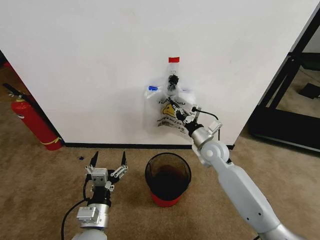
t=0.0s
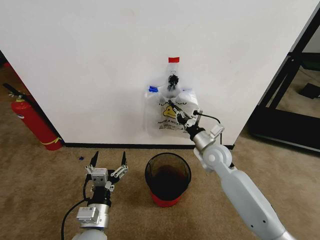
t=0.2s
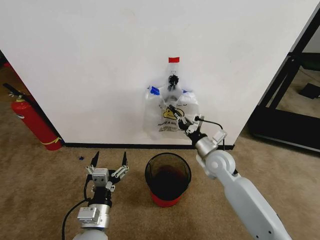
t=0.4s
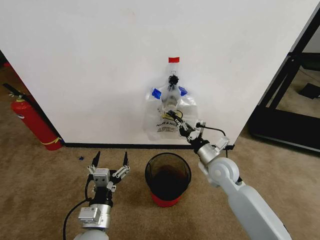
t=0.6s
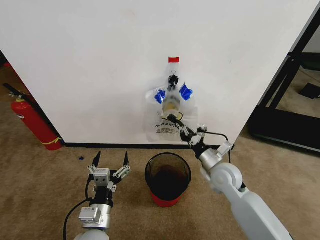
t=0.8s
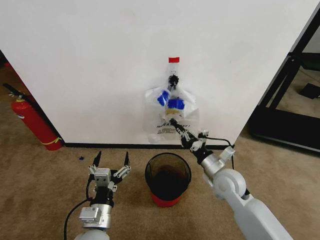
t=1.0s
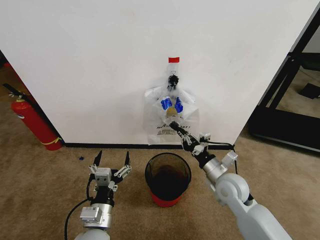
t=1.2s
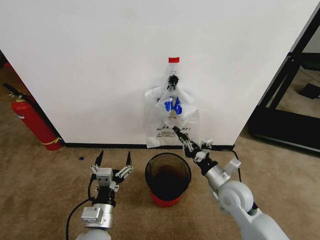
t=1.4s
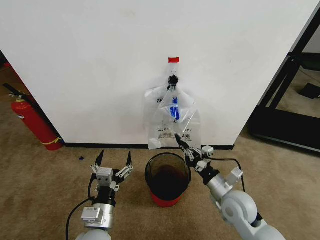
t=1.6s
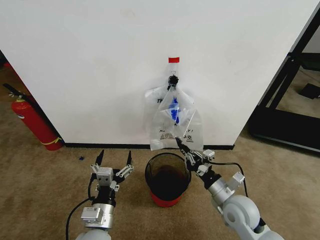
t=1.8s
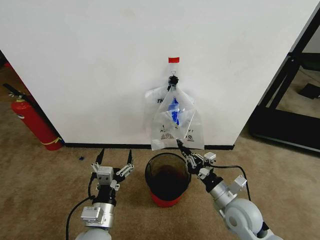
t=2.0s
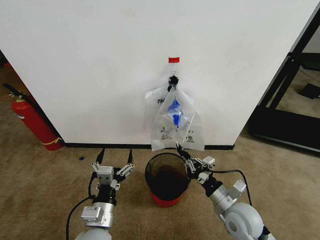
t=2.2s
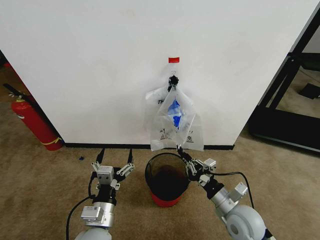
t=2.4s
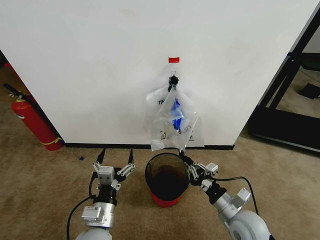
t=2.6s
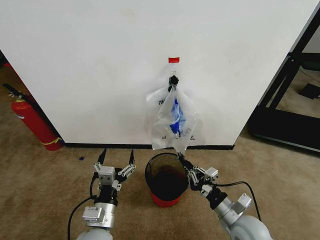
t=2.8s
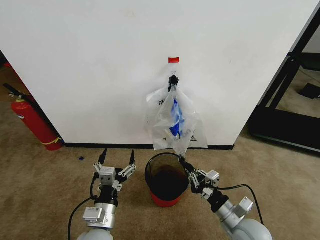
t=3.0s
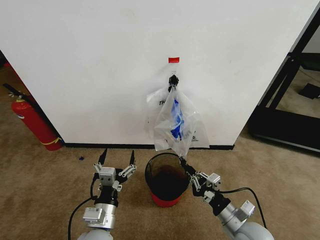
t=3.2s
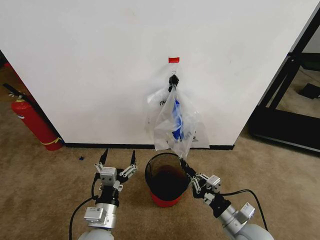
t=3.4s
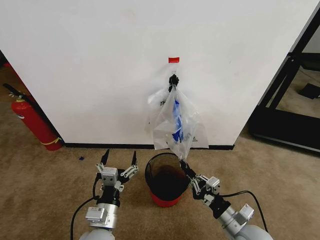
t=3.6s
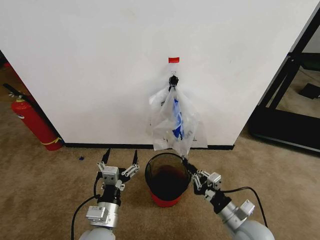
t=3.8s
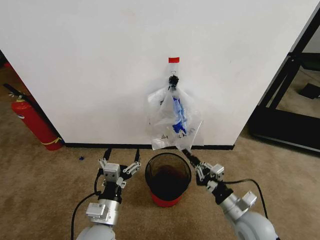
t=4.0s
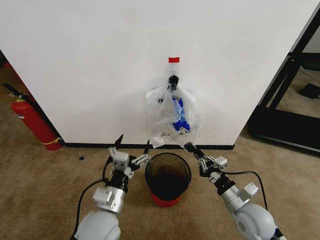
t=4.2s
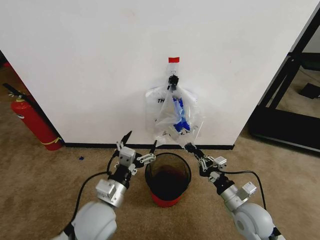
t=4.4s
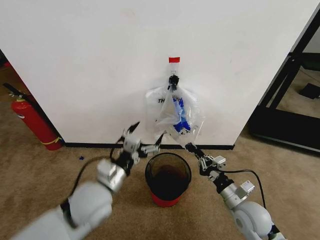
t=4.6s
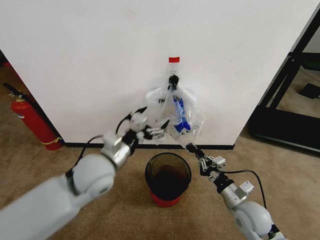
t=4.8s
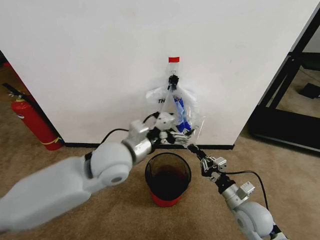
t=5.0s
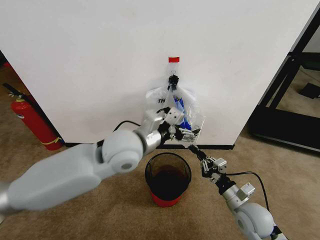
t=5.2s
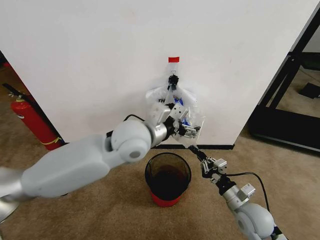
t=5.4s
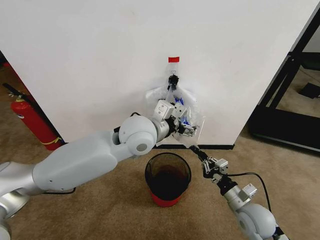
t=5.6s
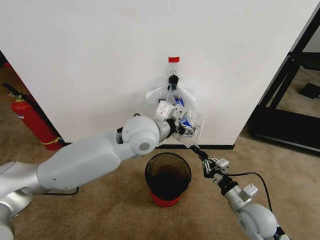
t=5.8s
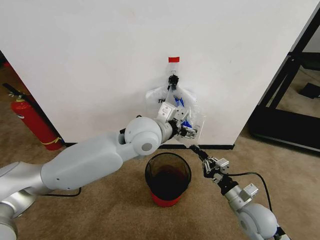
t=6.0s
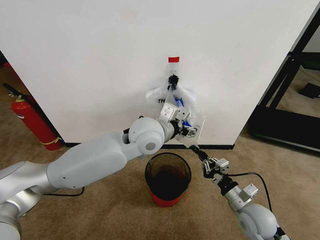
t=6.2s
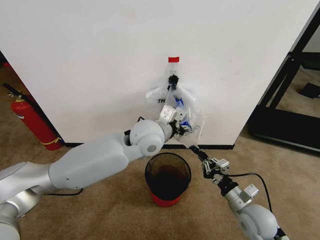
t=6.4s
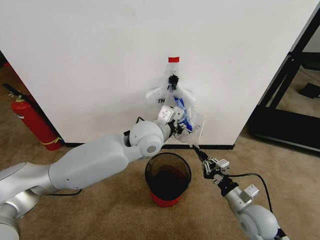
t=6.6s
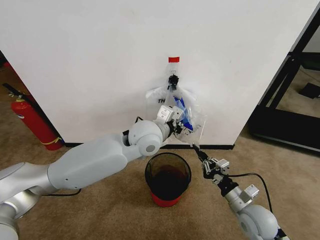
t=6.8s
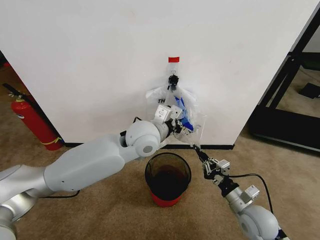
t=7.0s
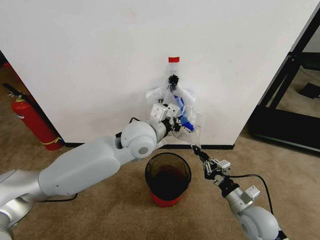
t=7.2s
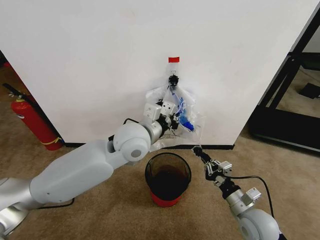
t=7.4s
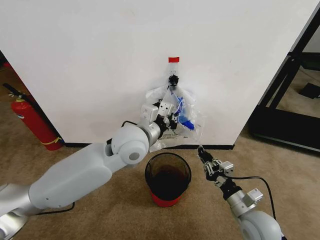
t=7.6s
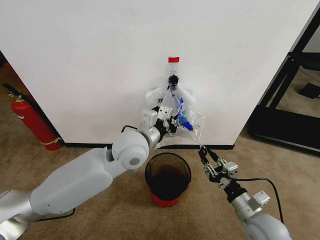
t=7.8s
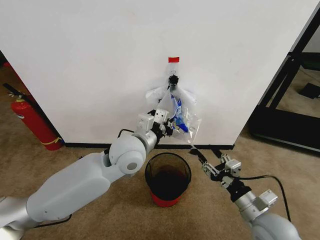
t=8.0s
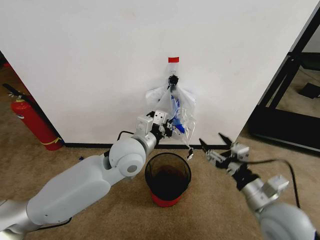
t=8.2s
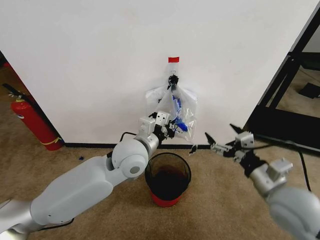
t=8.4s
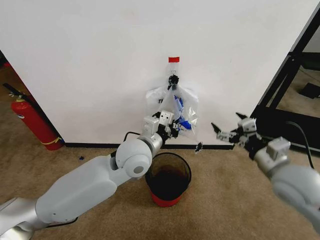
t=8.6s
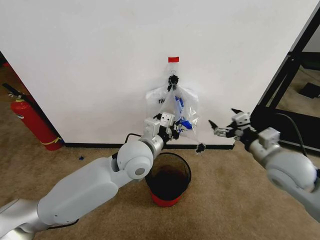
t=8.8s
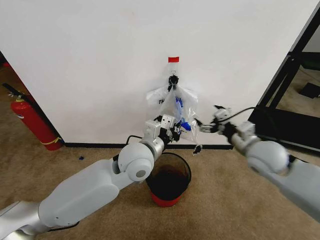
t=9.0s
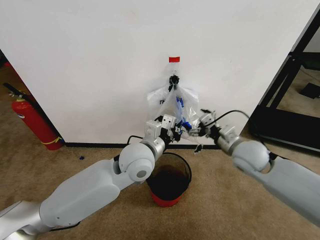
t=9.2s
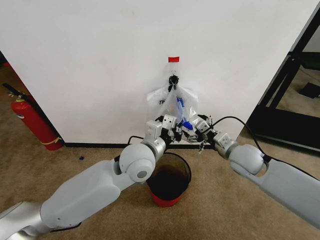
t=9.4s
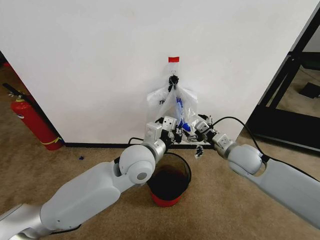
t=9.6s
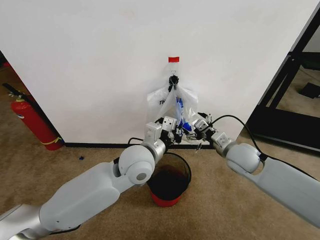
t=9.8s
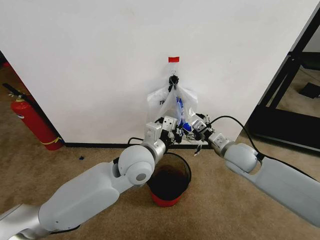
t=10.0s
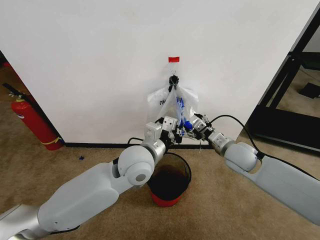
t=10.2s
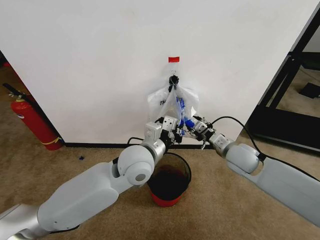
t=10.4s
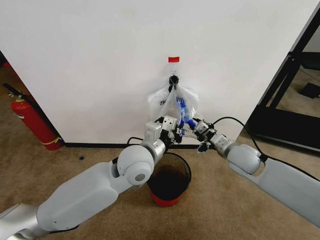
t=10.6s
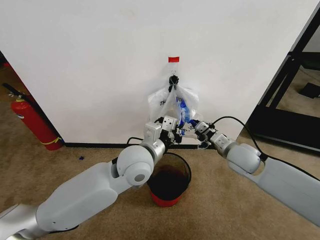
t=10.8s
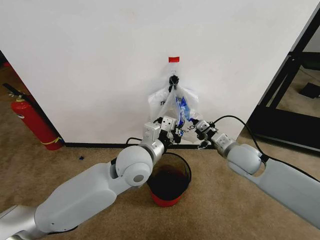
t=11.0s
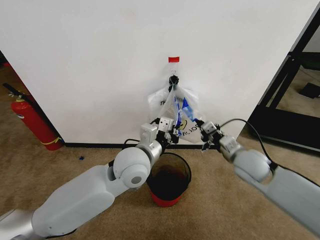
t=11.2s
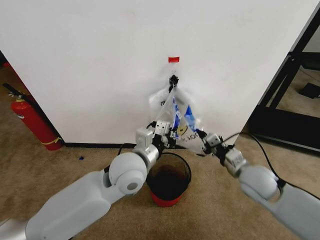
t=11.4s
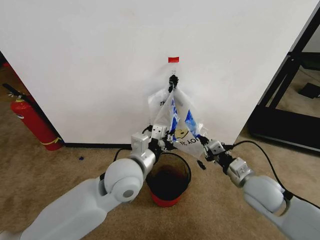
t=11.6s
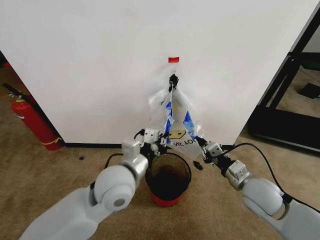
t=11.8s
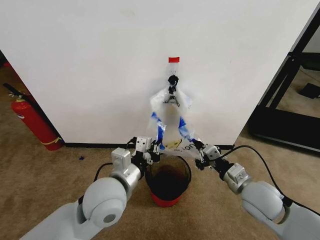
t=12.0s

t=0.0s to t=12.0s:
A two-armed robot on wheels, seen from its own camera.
Task of the whole recording: Pick up the garbage bag from the wall and place it over the trash bin.
t=0.0s to t=1.6s: The right gripper shifts about 15 cm backward.
t=1.6s to t=3.0s: The right gripper travels backward by some 10 cm.
t=3.0s to t=4.4s: The left gripper shifts approximately 5 cm forward.
t=4.4s to t=6.0s: The left gripper travels upward, forward and to the right by approximately 25 cm.
t=6.0s to t=7.6s: The left gripper closes.
t=7.6s to t=9.0s: The right gripper goes some 20 cm upward and forward, and opens up, while the left gripper changes place by approximately 5 cm.
t=9.0s to t=10.4s: The right gripper moves downward, about 5 cm, and closes its fingers.
t=10.4s to t=12.0s: The right gripper moves backward, roughly 10 cm, and closes up. Meanwhile the left gripper heads backward and to the left, covering some 10 cm.

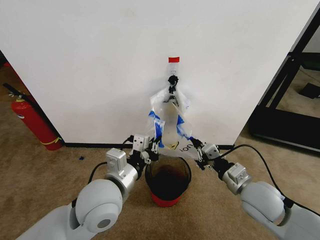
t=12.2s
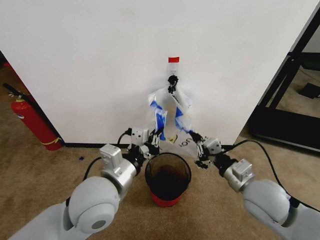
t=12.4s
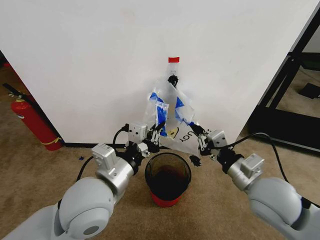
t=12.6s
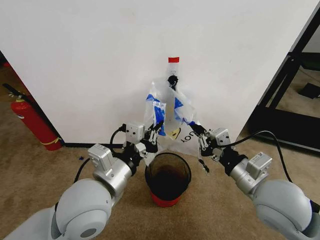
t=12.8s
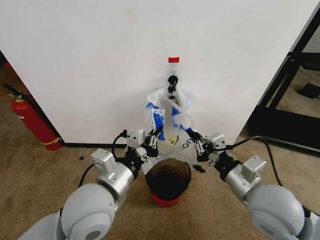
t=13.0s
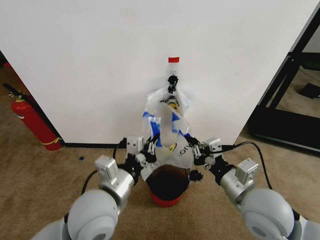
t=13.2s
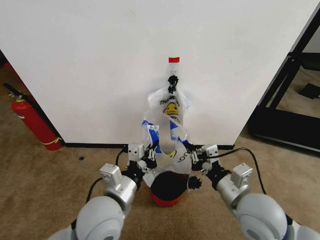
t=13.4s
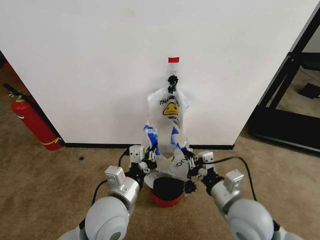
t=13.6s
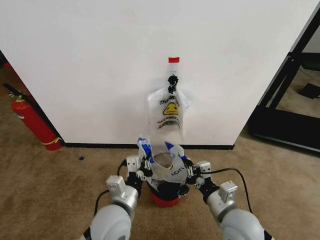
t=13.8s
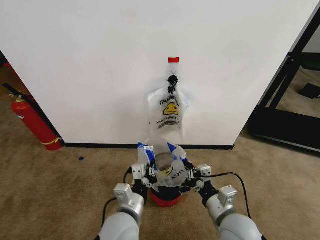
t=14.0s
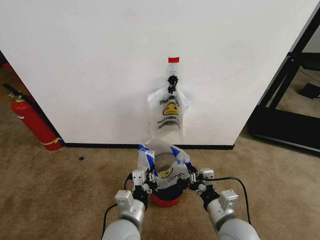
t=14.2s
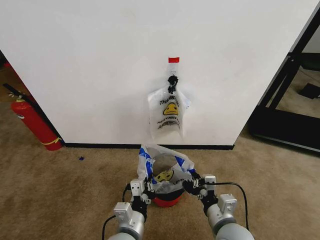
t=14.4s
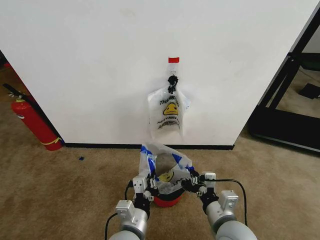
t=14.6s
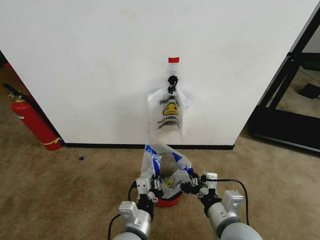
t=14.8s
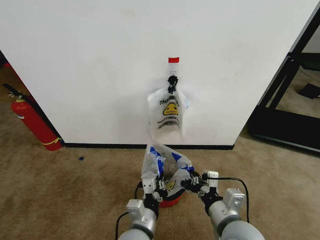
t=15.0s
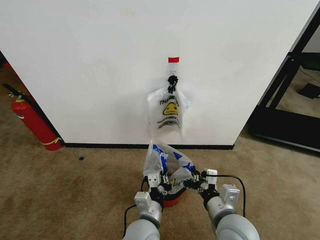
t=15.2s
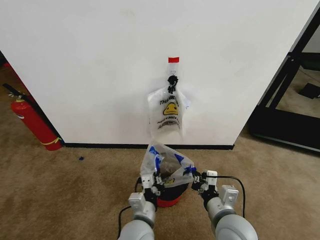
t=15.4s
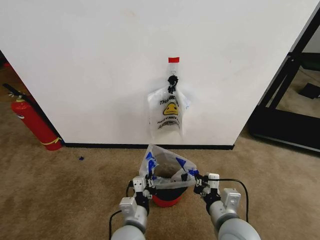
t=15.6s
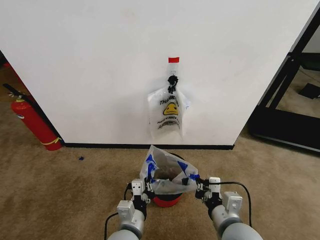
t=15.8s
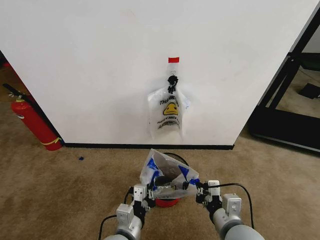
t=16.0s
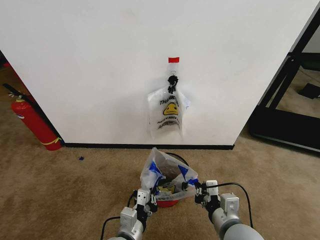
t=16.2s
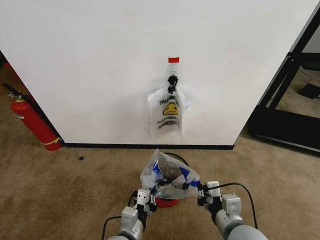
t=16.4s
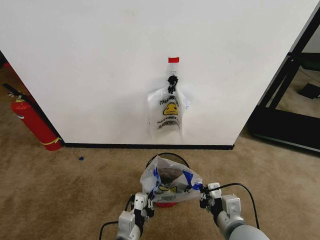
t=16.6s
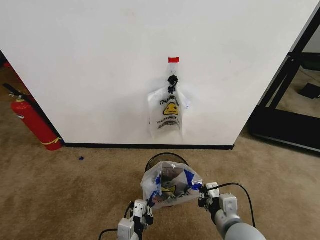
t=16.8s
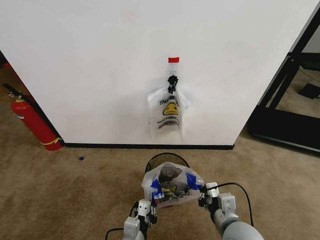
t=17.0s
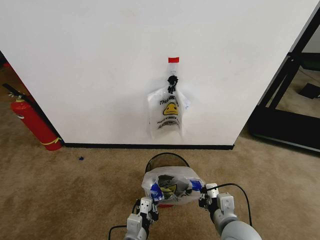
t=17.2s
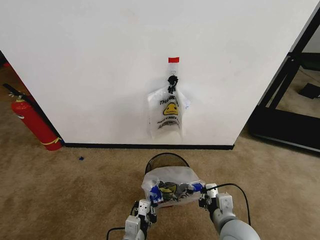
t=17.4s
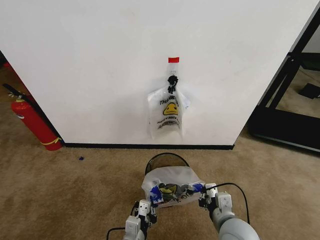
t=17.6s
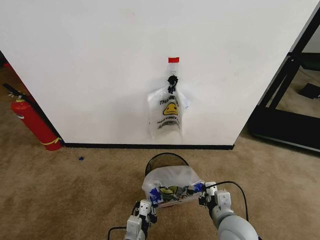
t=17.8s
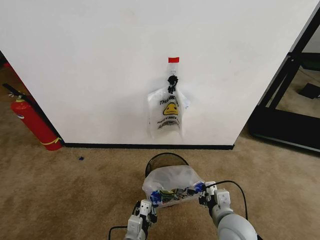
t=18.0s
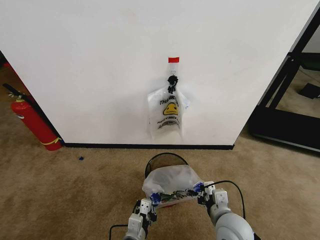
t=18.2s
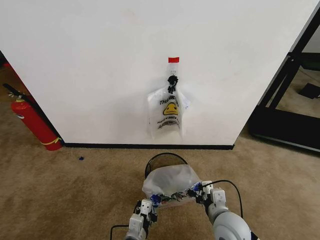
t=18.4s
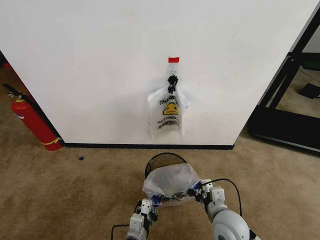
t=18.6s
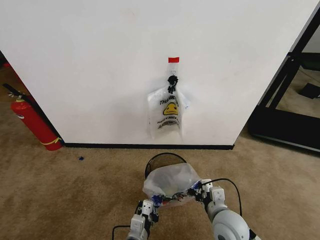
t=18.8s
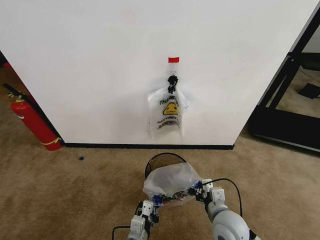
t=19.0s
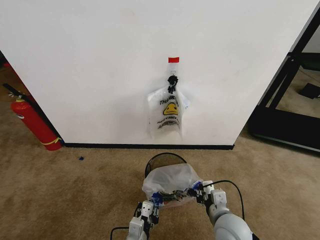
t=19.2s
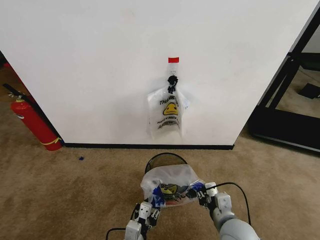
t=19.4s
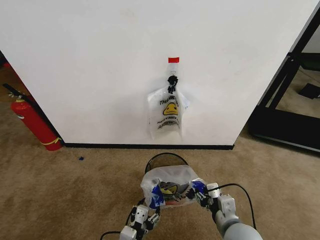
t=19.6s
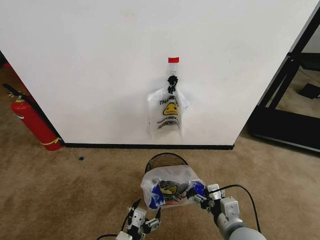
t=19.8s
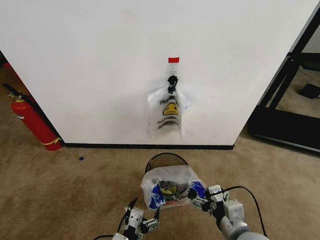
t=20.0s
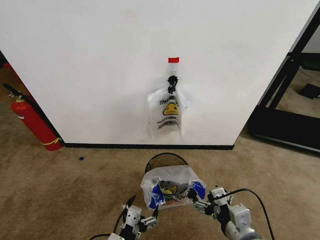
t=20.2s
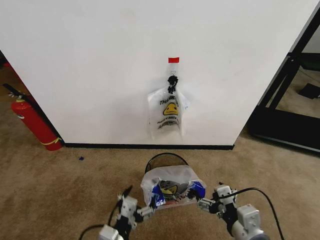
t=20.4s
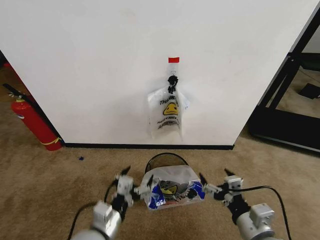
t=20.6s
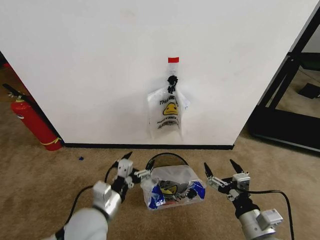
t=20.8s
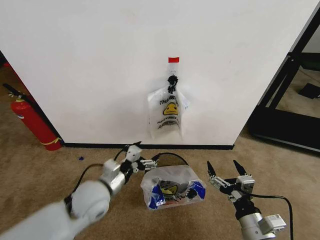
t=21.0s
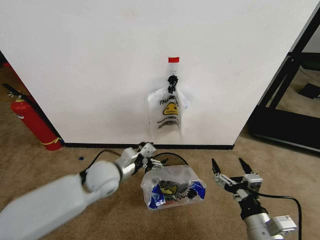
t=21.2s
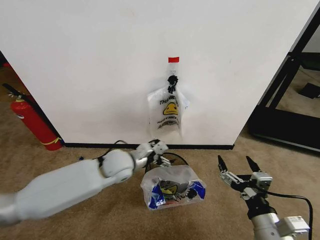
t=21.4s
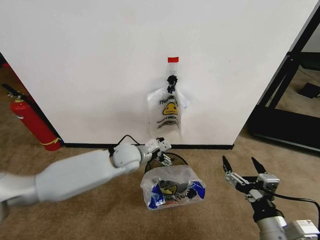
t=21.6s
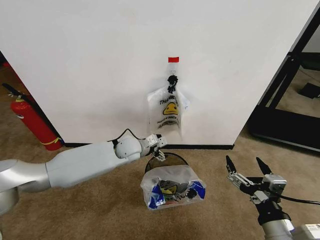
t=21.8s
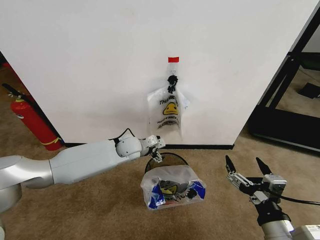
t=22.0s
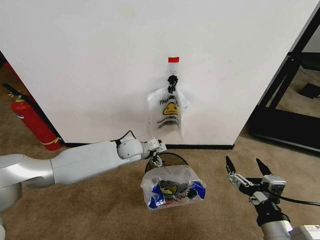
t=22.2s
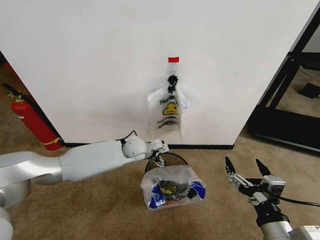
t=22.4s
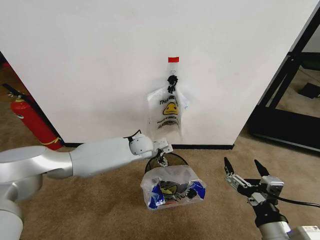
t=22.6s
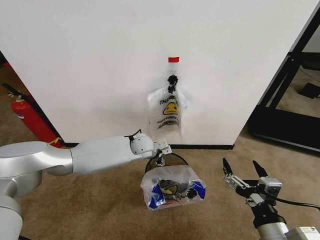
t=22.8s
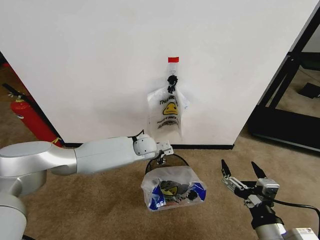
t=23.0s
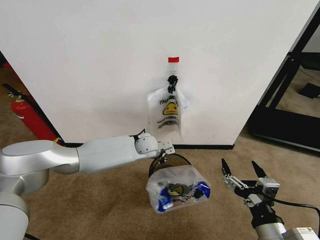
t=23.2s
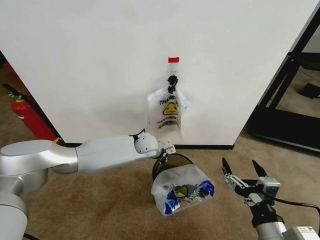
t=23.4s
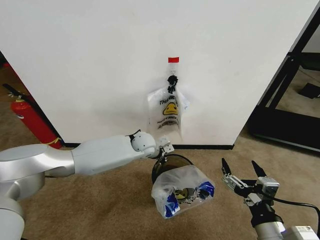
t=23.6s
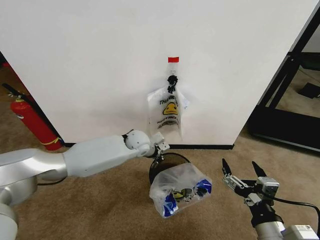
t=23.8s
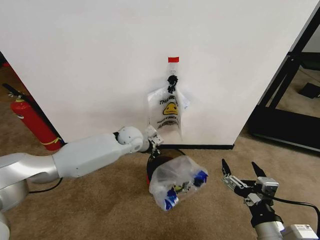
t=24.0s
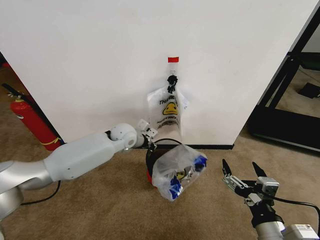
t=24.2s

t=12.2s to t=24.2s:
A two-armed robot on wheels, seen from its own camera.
Task of the whole recording: Pick up the garbage bag from the wall and place it over the trash bin.
t=12.2s to t=13.8s: The left gripper heads downward, covering approximately 10 cm. The right gripper shifts some 10 cm to the left and backward, and reaches about 10 cm upward, then returns.
t=13.8s to t=15.2s: The left gripper is displaced to the right and downward by some 10 cm.
t=15.2s to t=16.6s: The left gripper is displaced to the left by roughly 5 cm.
t=16.6s to t=18.2s: Both grippers move downward, roughly 5 cm.
t=18.2s to t=19.8s: The left gripper ends up approximately 5 cm from where it was, and opens its fingers; the right gripper ends up some 5 cm from where it was, and opens up.
t=19.8s to t=21.2s: The left gripper travels forward and upward by roughly 25 cm; the right gripper travels to the right by some 5 cm.
t=21.2s to t=22.6s: The right gripper changes place by about 5 cm. The left gripper moves forward and to the right, some 20 cm.
t=22.6s to t=24.2s: The left gripper shifts some 10 cm to the left and upward, and closes its fingers.
